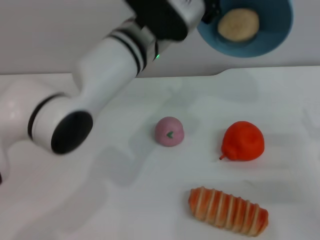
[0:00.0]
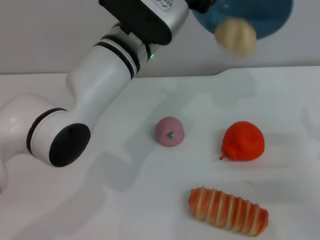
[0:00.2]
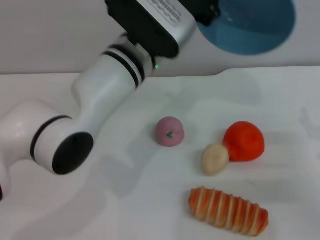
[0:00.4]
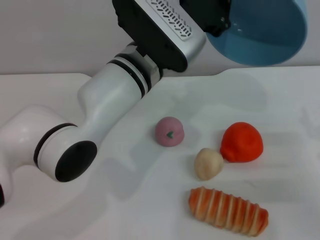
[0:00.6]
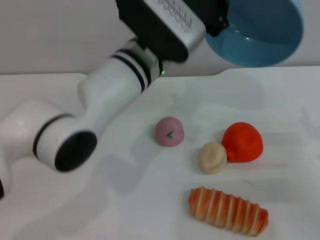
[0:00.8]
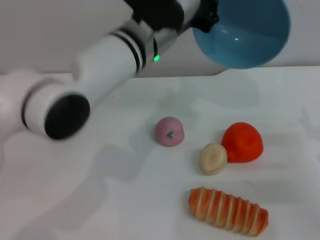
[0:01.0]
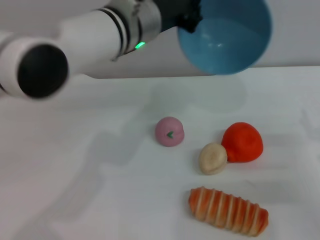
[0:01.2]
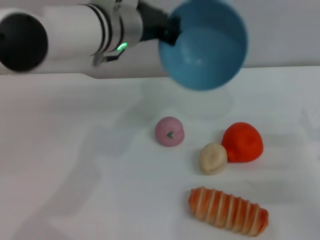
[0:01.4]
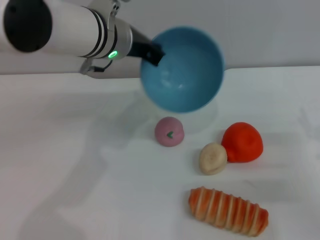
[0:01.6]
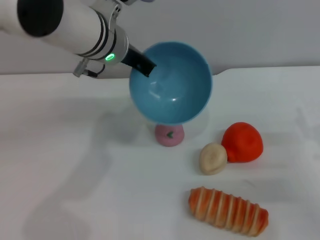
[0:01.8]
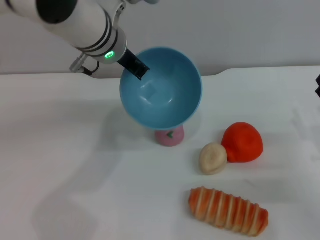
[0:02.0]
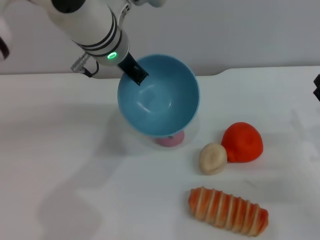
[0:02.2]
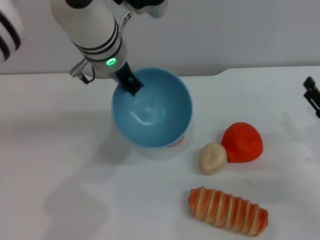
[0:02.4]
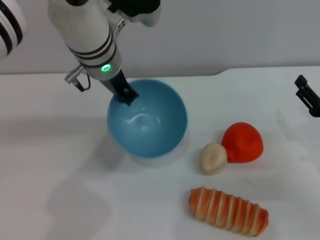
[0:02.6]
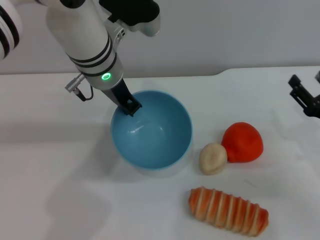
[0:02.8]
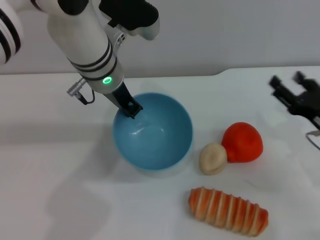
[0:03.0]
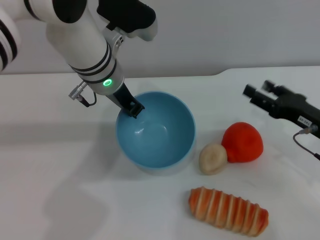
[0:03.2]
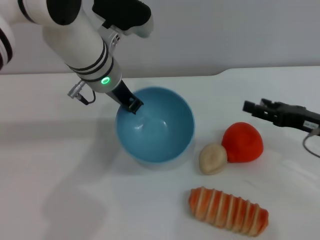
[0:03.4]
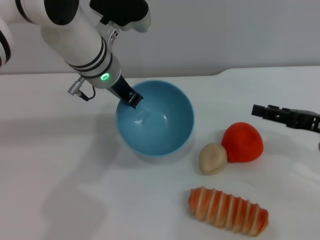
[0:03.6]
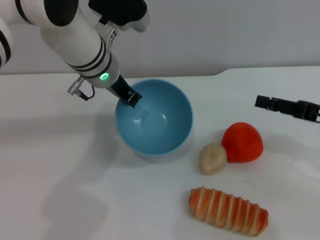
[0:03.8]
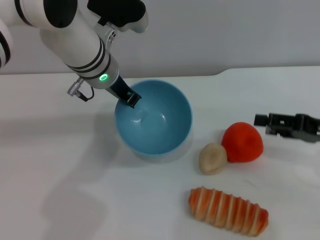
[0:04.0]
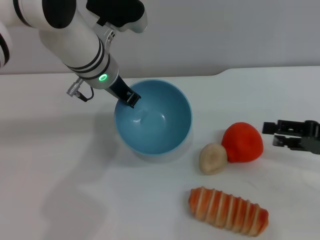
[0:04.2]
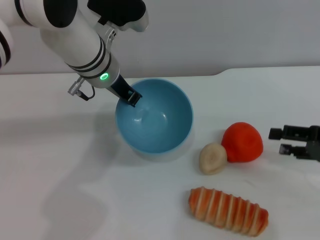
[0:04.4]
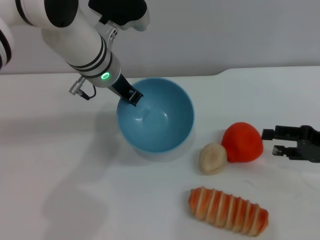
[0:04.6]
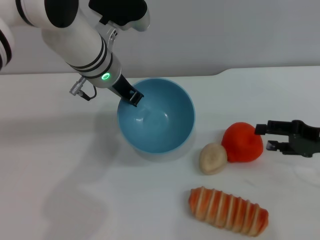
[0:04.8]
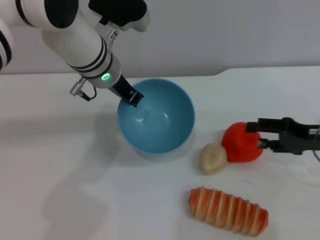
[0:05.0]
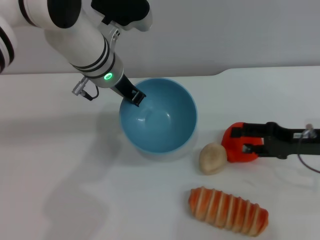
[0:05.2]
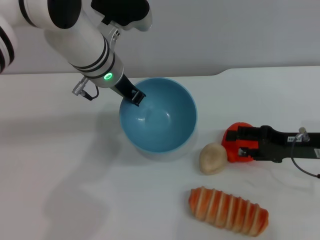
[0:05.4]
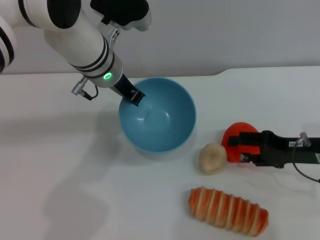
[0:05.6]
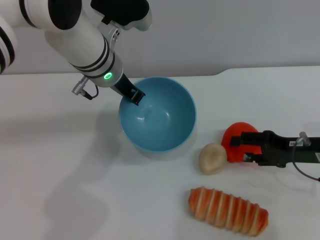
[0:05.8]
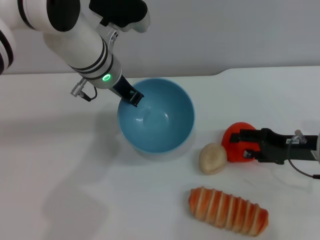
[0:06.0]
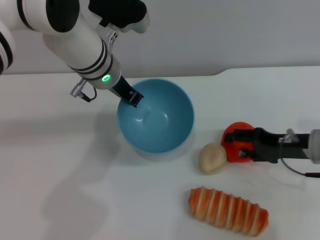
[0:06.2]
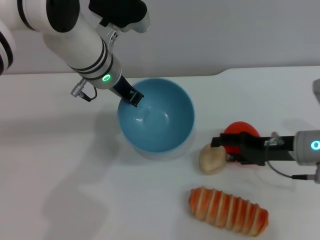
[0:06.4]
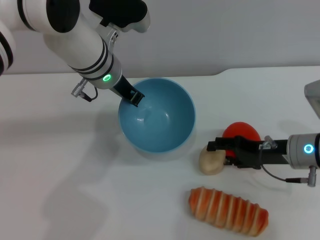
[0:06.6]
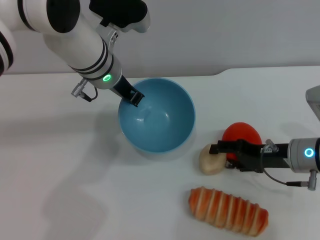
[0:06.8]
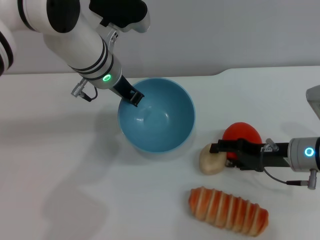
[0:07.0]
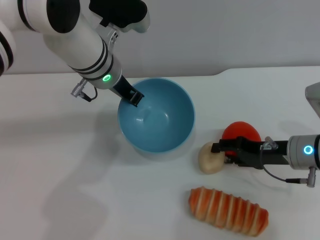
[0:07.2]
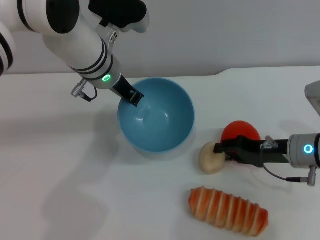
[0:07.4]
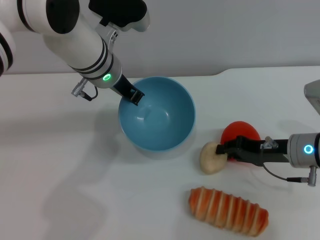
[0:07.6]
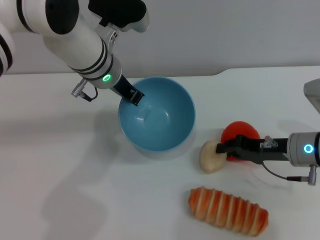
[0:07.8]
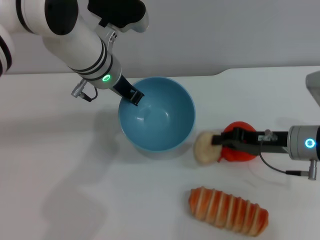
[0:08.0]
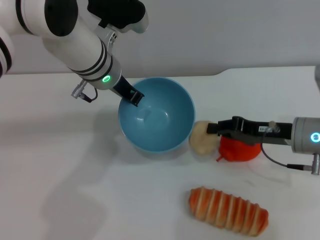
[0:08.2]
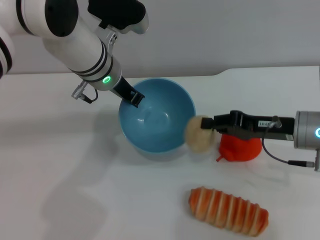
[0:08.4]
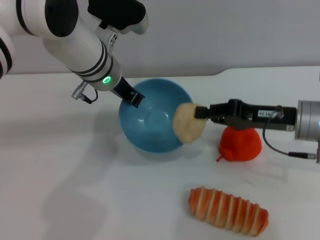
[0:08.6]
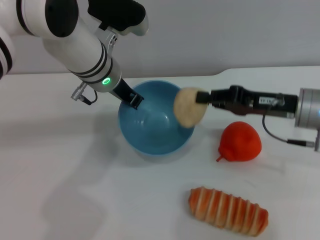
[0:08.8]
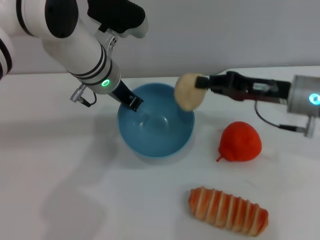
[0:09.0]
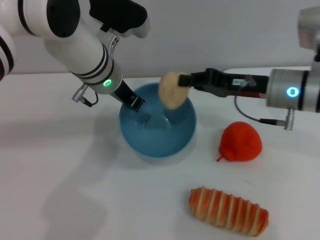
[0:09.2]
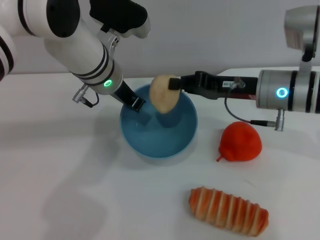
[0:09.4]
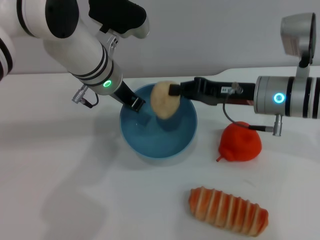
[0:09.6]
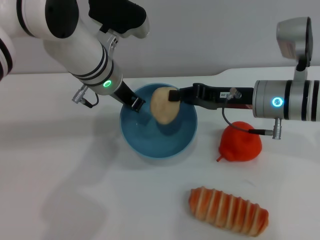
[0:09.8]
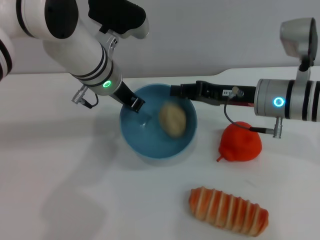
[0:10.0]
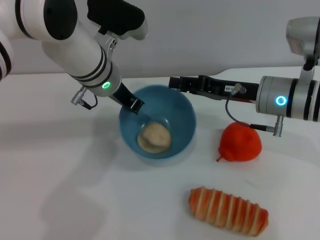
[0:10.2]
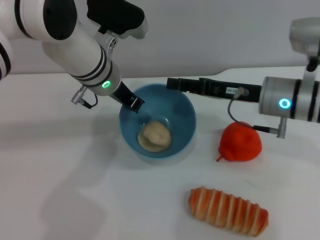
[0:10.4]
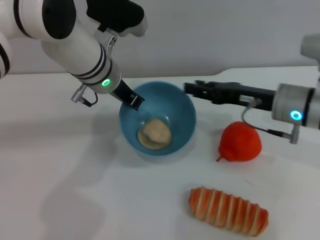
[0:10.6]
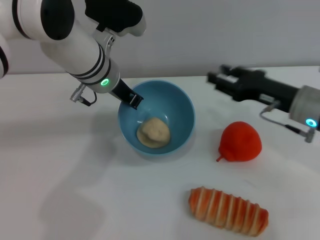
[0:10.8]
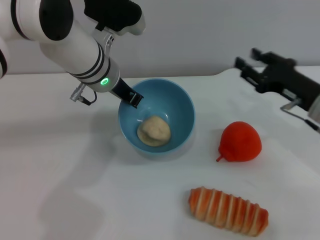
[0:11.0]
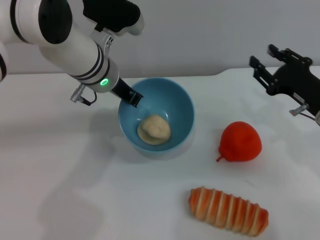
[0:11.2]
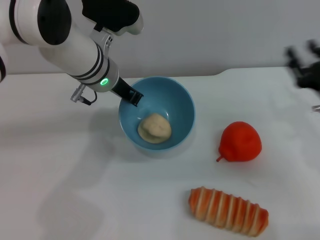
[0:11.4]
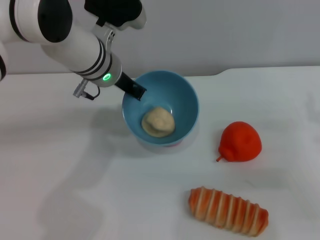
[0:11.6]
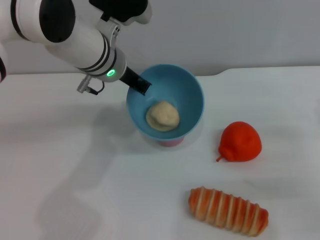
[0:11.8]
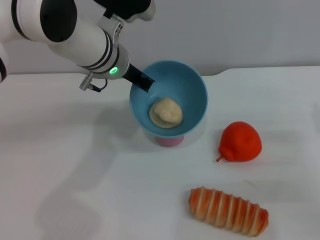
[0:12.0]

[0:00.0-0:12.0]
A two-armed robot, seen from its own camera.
Task of the whole recording: put the egg yolk pastry into the blue bowl and pour it out repeatedly.
Step, 1.4 to 8.4 s: Pick up the egg yolk pastry with the right gripper.
Step, 8.6 to 10.6 s: Place the egg yolk pastry into the bowl.
0.0 to 1.6 s: The left gripper moves roughly 5 cm.
3.0 to 4.4 s: The right gripper travels upward by approximately 5 cm.
4.4 to 6.0 s: The right gripper shifts roughly 5 cm to the left.
6.0 to 7.6 s: The right gripper closes its fingers.
7.6 to 9.0 s: The right gripper goes some 10 cm upward, and closes up.
9.0 to 10.4 s: The right gripper opens its fingers.
10.4 to 12.0 s: The right gripper shifts some 20 cm to the right, backward and downward.

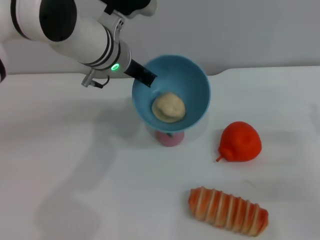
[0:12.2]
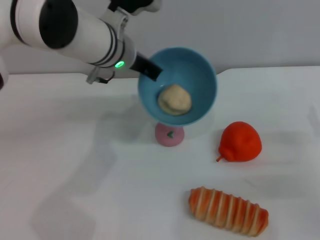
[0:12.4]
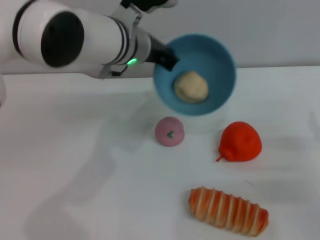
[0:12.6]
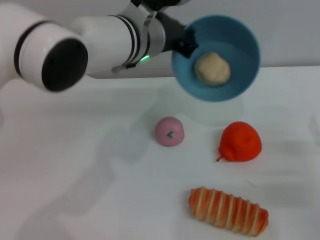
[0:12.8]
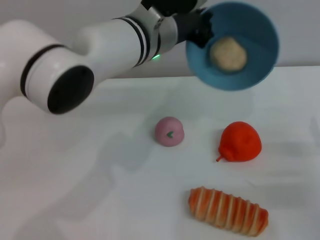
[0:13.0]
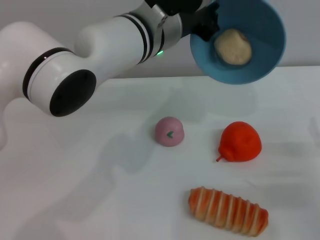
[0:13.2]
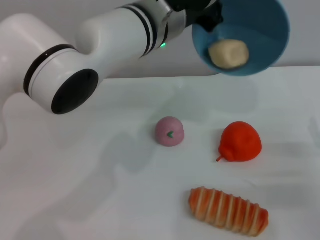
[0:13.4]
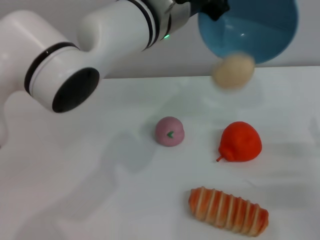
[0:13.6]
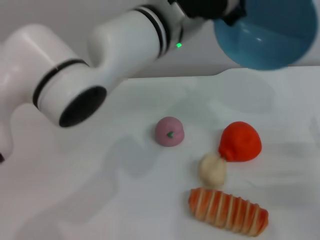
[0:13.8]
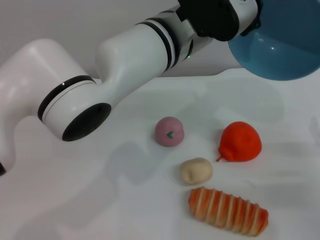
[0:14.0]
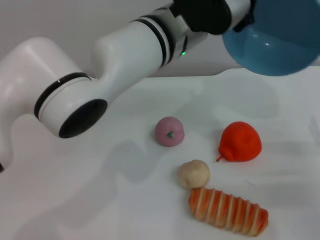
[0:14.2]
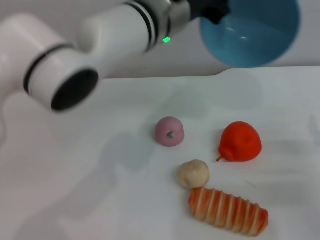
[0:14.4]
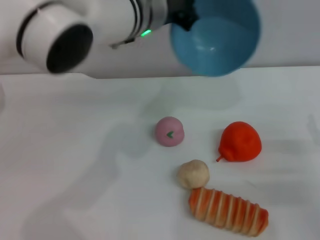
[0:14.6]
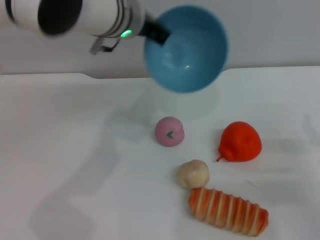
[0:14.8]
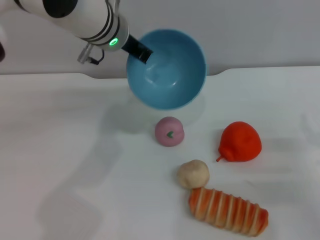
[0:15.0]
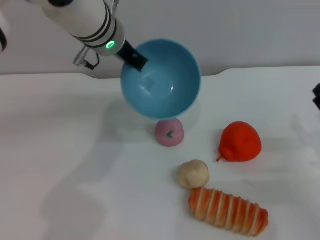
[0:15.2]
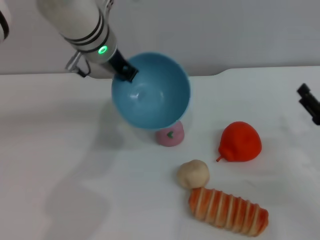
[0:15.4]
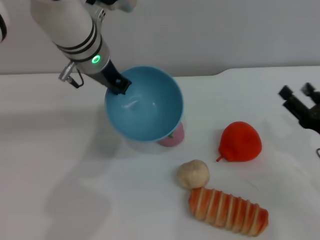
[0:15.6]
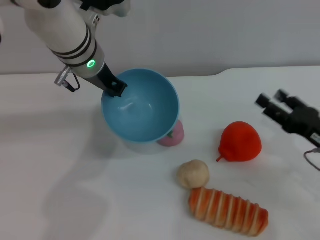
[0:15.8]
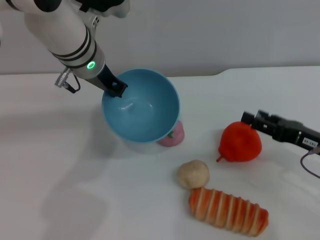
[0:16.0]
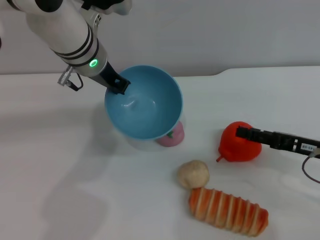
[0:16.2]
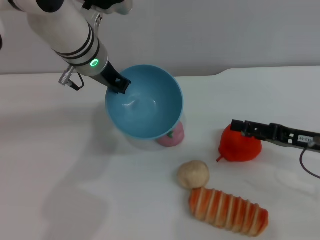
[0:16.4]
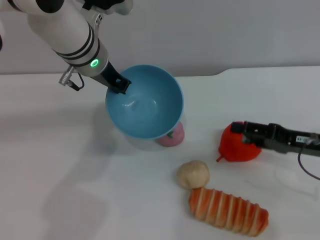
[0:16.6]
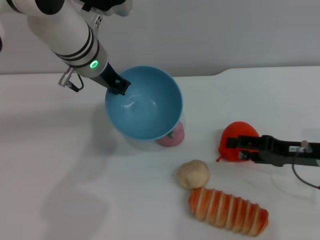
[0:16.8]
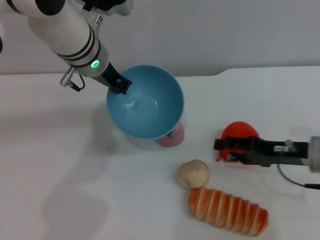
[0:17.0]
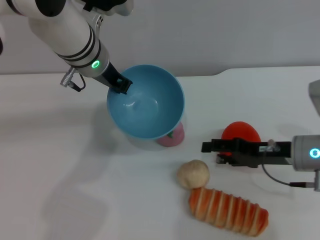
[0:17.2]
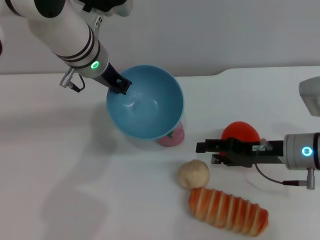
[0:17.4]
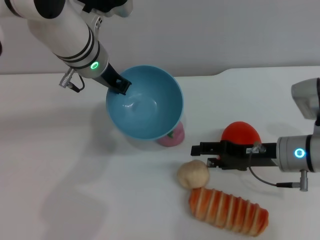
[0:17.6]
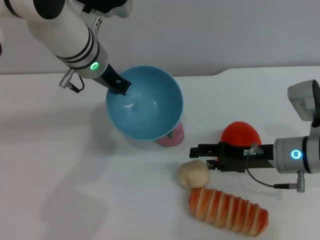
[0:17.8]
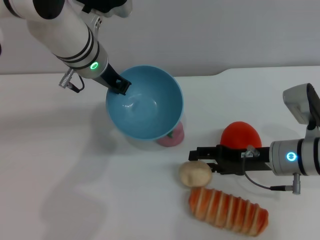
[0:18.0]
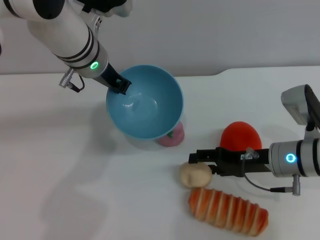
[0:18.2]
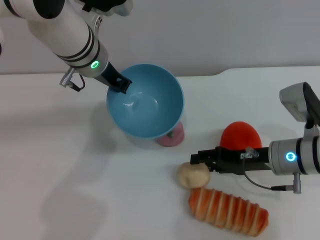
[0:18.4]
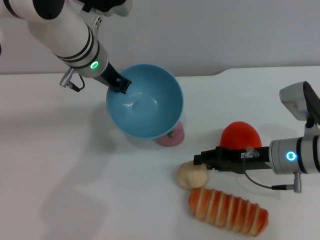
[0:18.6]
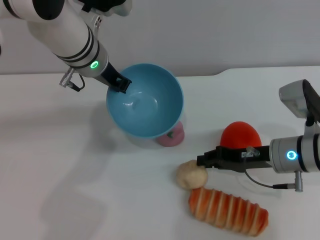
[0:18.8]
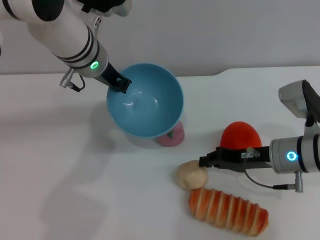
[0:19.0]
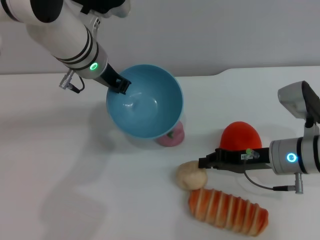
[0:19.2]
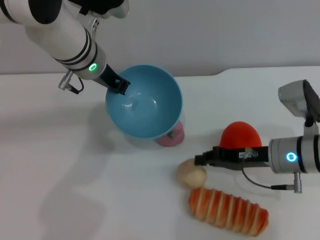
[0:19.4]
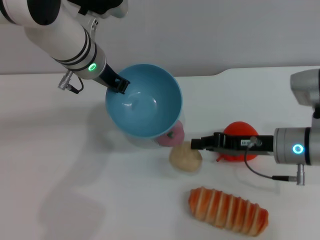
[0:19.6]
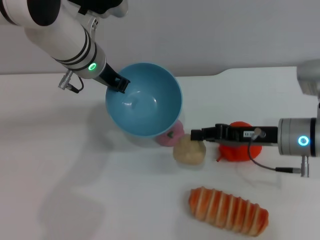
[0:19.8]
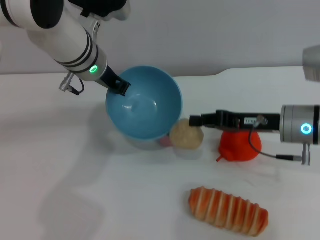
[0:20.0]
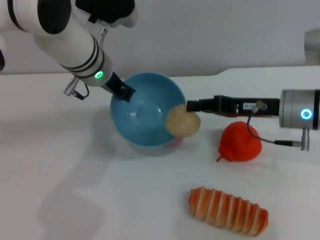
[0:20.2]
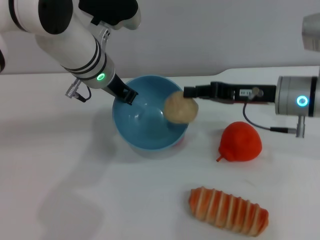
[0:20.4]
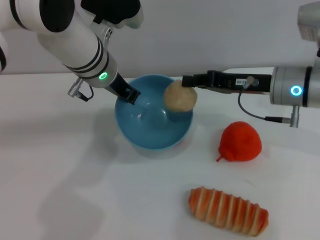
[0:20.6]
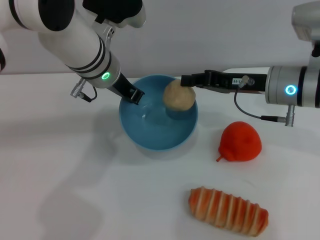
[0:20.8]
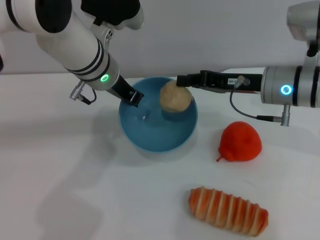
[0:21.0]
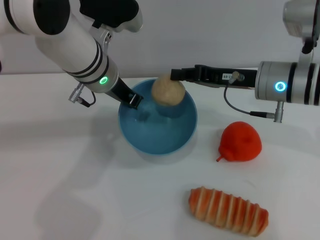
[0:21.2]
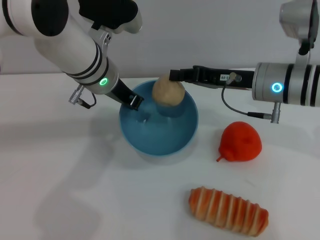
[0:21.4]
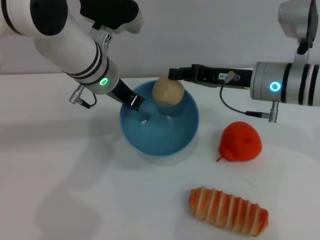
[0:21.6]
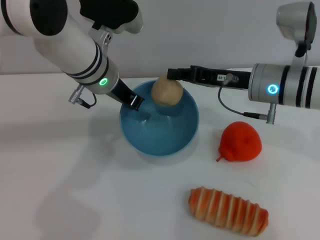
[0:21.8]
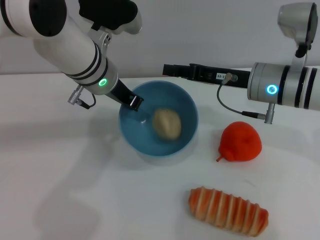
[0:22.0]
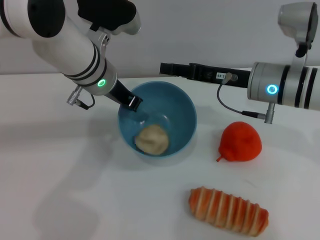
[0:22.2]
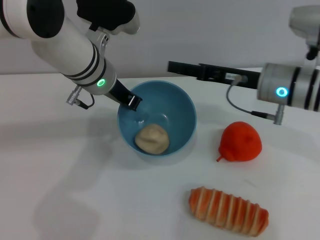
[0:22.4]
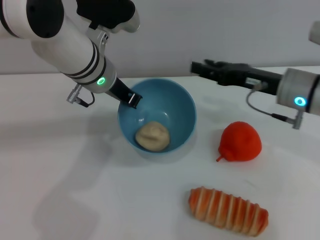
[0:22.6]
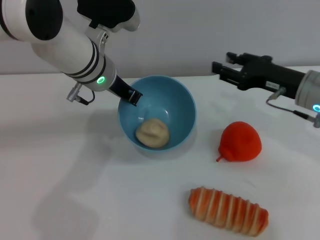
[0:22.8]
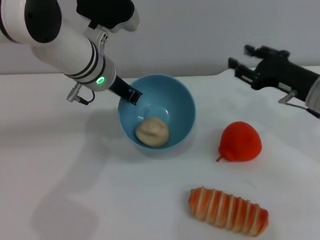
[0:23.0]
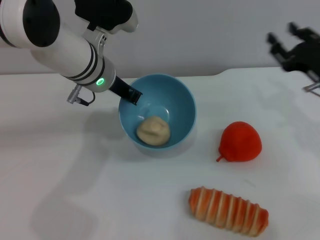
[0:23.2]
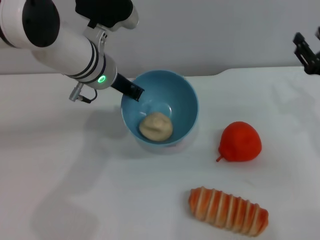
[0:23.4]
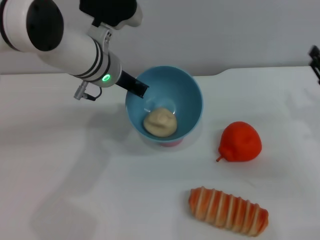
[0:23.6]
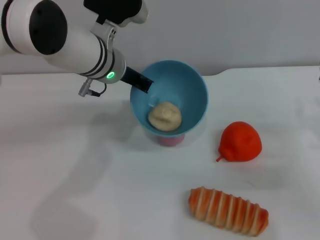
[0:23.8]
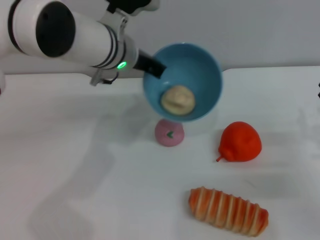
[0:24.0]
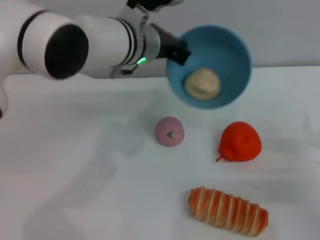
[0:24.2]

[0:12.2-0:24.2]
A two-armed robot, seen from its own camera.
Task of the whole recording: put the egg yolk pastry into the blue bowl and pour it out repeatedly.
Step, 12.2 to 13.8 s: Pour the egg yolk pastry out of bowl.
Step, 14.0 to 20.0 s: Pick up the egg yolk pastry with the right gripper.
Step, 20.4 to 22.6 s: Place the egg yolk pastry into the bowl.
12.2 to 13.8 s: The left gripper heads to the right and backward, covering approximately 10 cm.
13.8 to 15.2 s: The left gripper is displaced to the left and forward by about 10 cm.
15.2 to 16.6 s: The right gripper travels upward by roughly 5 cm.
16.6 to 18.2 s: The right gripper moves to the left, roughly 5 cm.
18.2 to 19.8 s: The right gripper closes up.
19.8 to 21.2 s: The right gripper travels forward and upward by about 10 cm.
21.2 to 22.6 s: The right gripper opens.
22.6 to 24.2 s: The left gripper goes roughly 5 cm to the right. The right gripper goes approximately 20 cm backward, to the right and downward.
